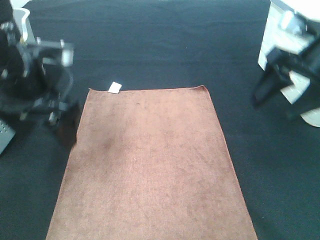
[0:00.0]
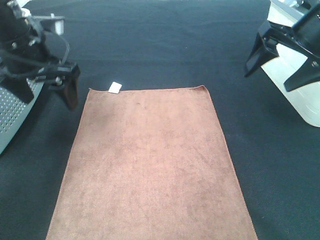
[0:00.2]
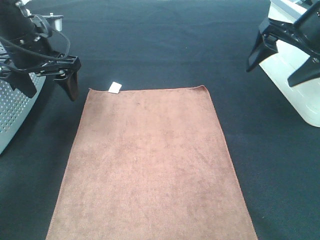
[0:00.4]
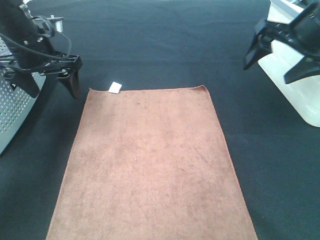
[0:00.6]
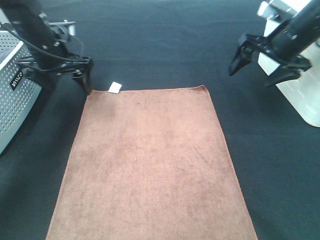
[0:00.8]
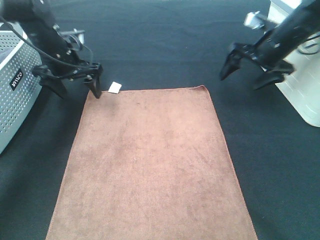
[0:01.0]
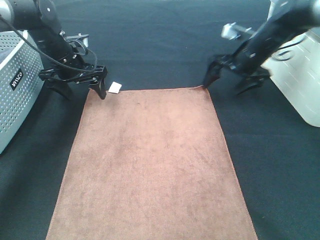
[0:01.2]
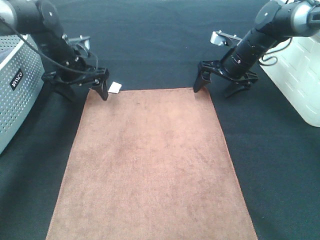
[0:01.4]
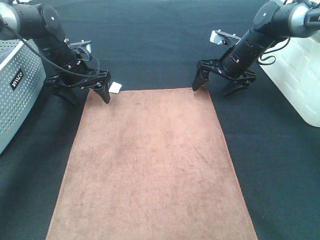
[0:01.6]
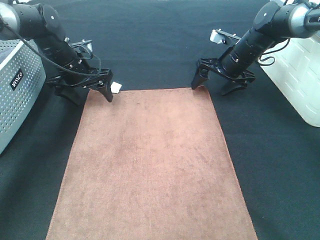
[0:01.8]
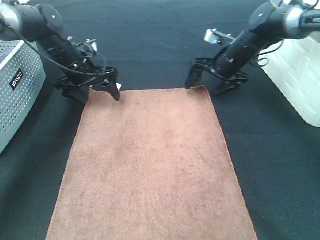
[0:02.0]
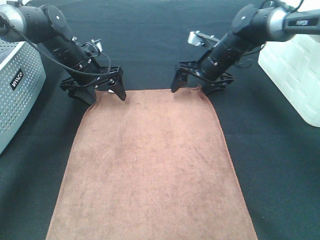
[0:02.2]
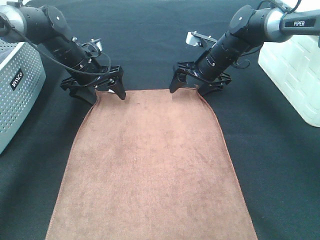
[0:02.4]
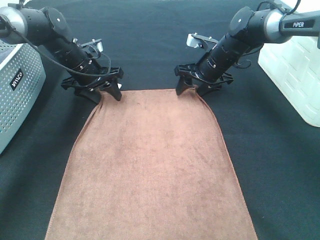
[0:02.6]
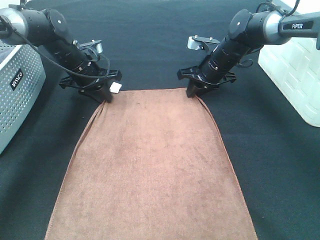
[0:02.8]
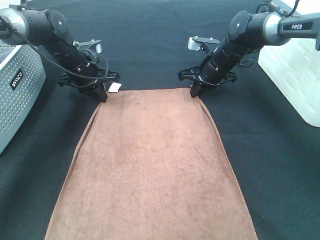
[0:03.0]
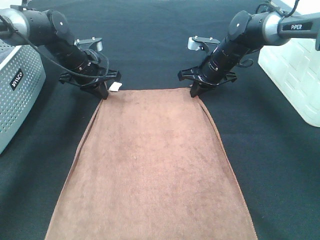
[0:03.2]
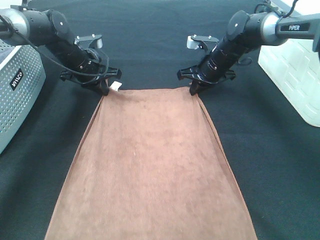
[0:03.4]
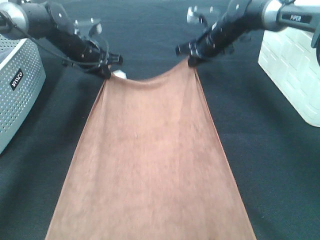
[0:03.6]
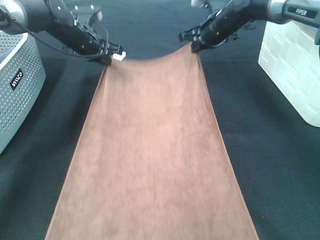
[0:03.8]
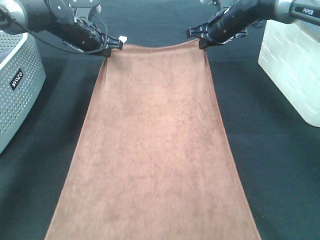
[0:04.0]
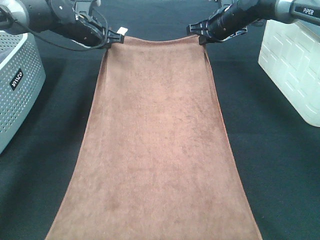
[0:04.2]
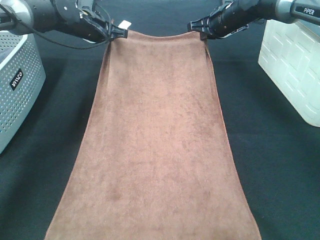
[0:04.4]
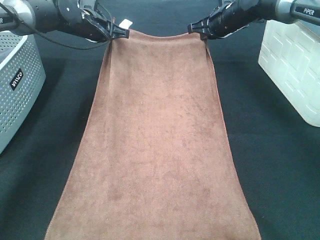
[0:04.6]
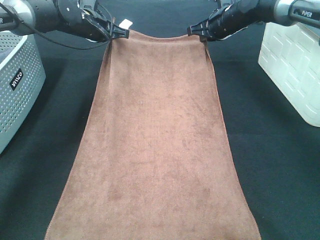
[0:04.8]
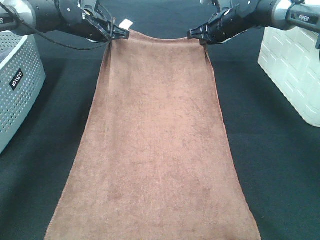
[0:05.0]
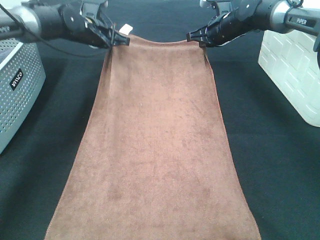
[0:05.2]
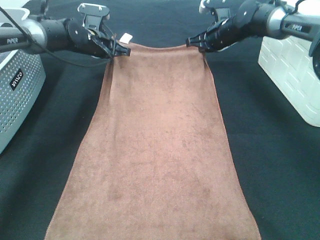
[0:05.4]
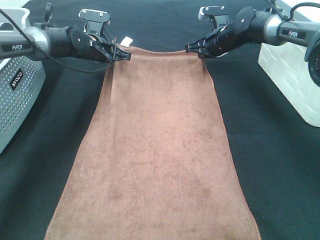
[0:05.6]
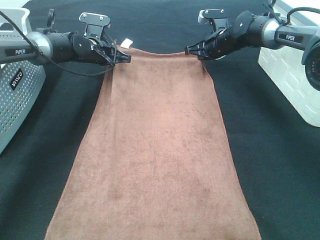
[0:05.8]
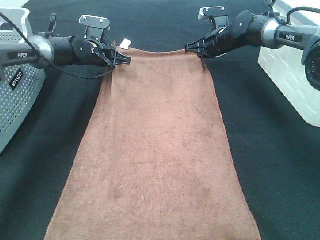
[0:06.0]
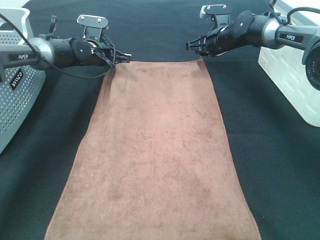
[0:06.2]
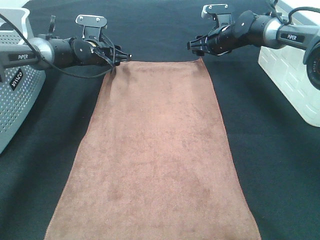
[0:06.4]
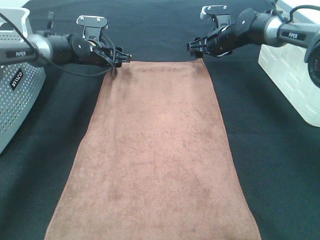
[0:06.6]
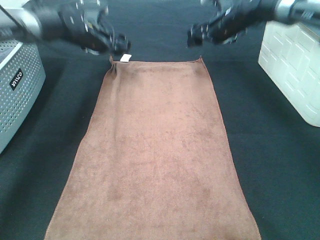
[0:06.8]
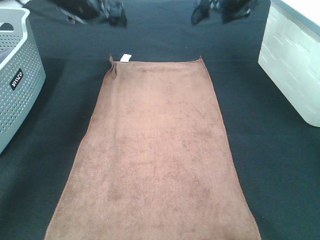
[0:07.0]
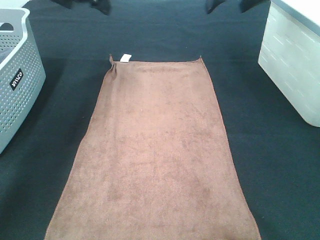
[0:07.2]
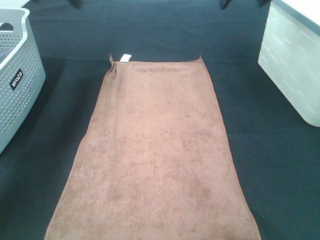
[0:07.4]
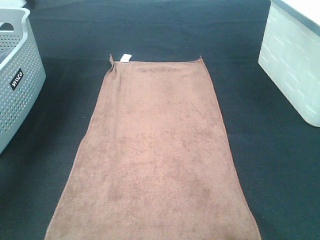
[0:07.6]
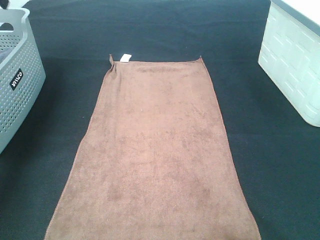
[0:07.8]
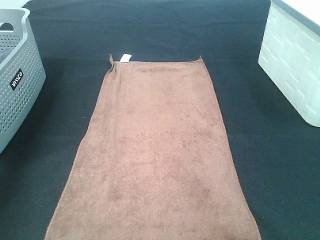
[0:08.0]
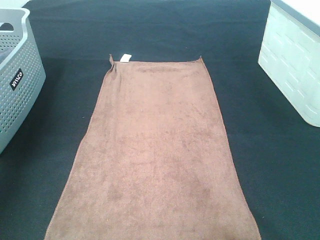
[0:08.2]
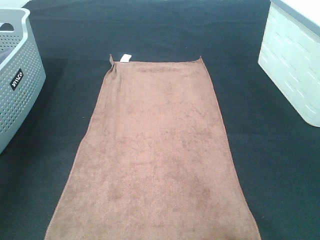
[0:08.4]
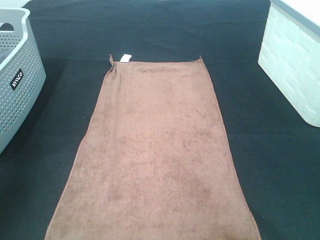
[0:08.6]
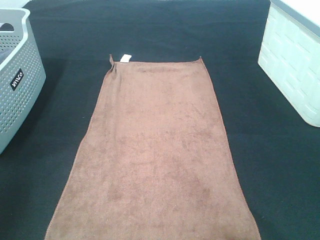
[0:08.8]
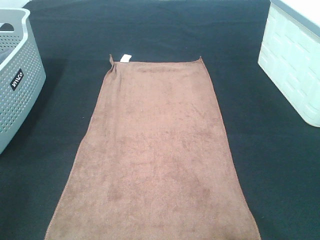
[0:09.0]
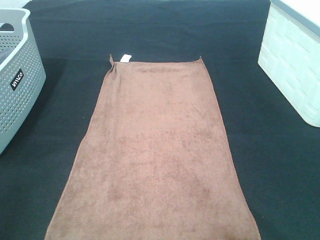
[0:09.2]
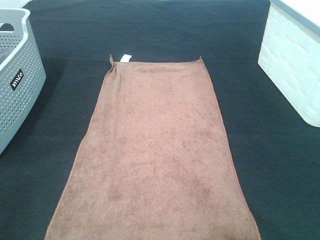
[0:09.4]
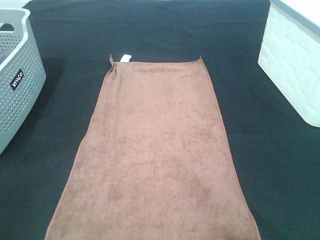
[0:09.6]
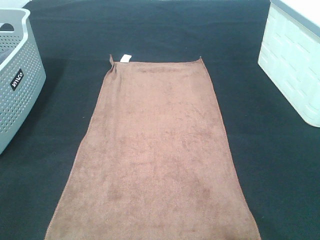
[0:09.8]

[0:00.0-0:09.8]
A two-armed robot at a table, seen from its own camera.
Task of the whole recording: Remove the towel and place it.
0:00.0 to 0:01.4: The two grippers go approximately 25 cm forward and downward.
0:01.4 to 0:02.8: The left gripper closes its fingers; the right gripper moves to the left, some 5 cm, and closes.
0:02.8 to 0:04.2: Both grippers move upward and forward, roughly 10 cm.
0:04.2 to 0:05.6: The two grippers go approximately 5 cm downward.
0:05.6 to 0:07.0: The two grippers go roughly 15 cm upward. The right gripper opens up; the left gripper opens its fingers.
0:07.0 to 0:08.4: The left gripper goes approximately 35 cm backward, to the left and upward; the right gripper heads backward and upward, covering approximately 35 cm.
0:08.4 to 0:09.8: The left gripper moves backward, roughly 25 cm.

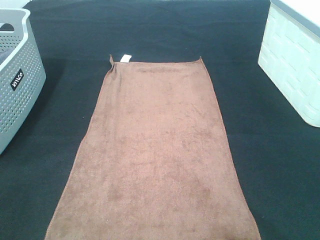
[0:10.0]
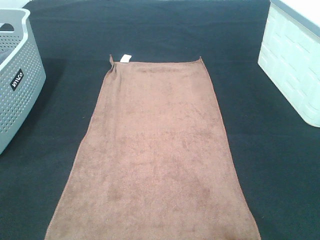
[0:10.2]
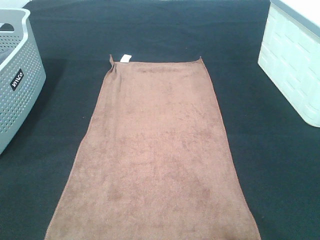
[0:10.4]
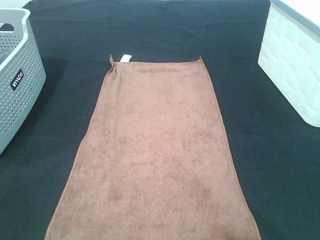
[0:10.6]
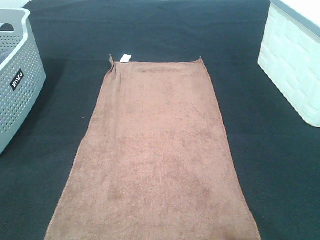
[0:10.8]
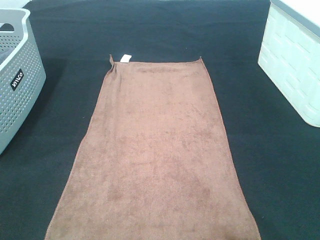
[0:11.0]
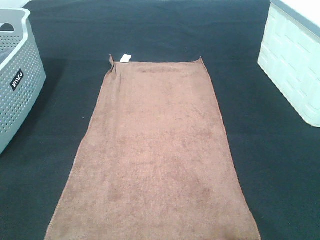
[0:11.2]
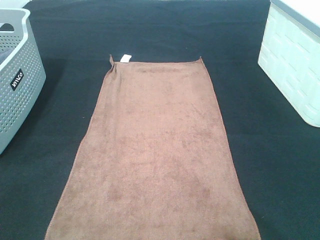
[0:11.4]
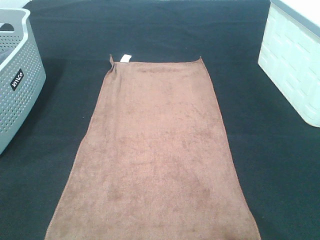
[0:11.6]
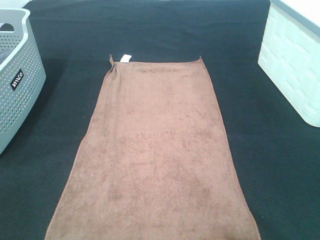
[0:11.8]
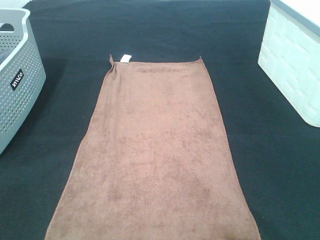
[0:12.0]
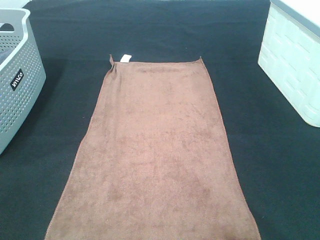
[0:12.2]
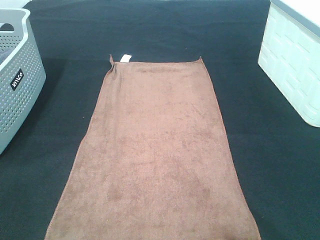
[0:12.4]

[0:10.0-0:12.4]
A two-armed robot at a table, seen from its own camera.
Task of the whole recording: Remove the towel and place it.
0:11.2 to 0:12.4: Neither gripper changes place.

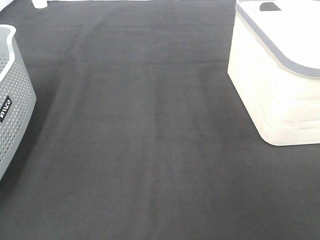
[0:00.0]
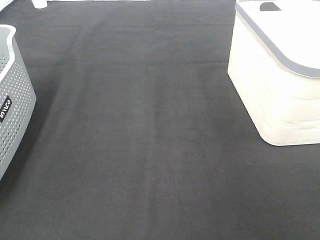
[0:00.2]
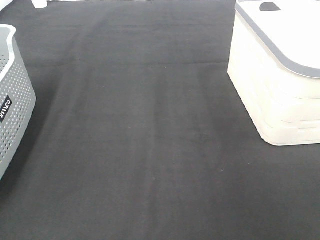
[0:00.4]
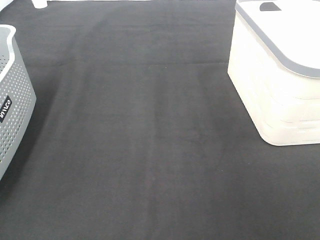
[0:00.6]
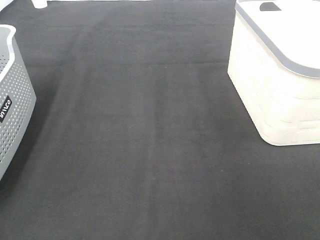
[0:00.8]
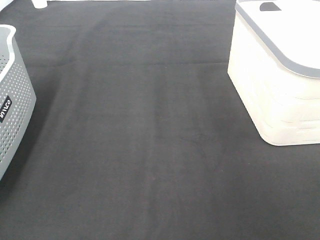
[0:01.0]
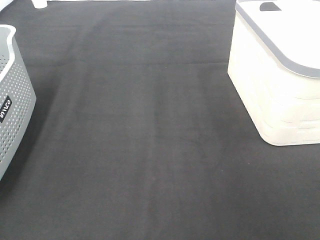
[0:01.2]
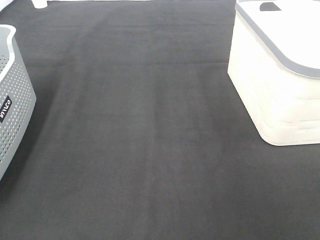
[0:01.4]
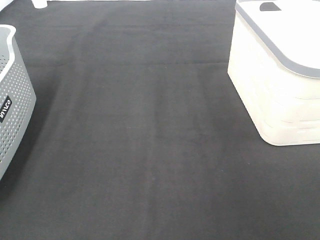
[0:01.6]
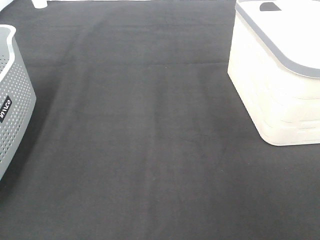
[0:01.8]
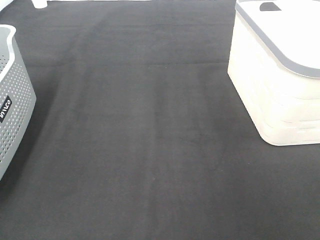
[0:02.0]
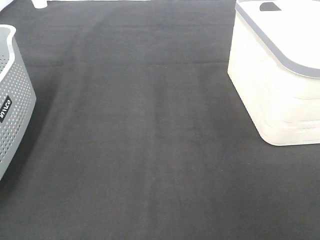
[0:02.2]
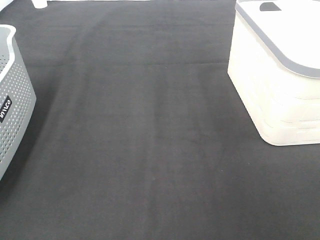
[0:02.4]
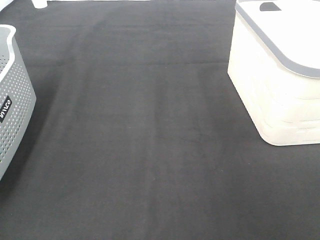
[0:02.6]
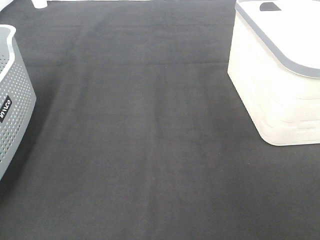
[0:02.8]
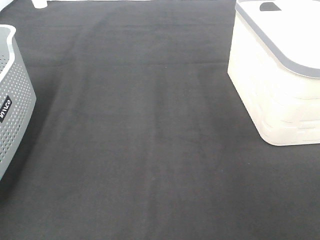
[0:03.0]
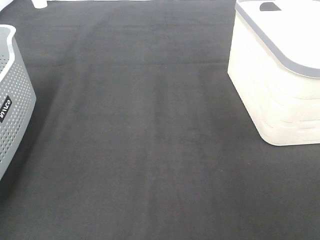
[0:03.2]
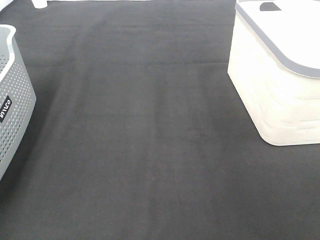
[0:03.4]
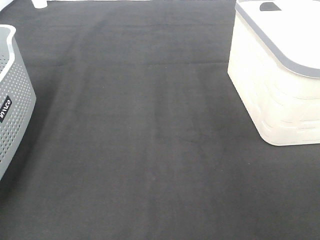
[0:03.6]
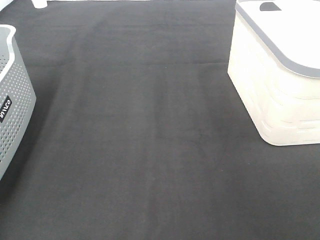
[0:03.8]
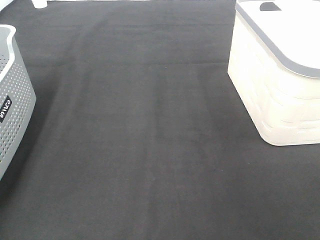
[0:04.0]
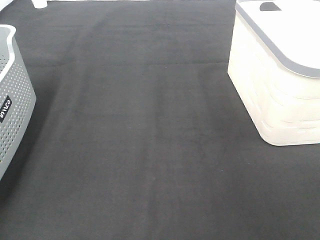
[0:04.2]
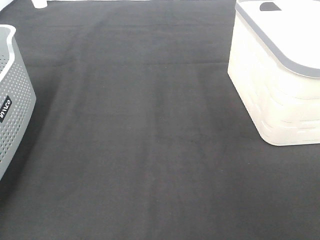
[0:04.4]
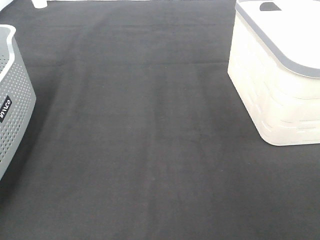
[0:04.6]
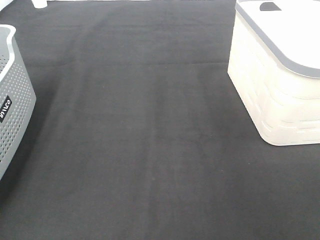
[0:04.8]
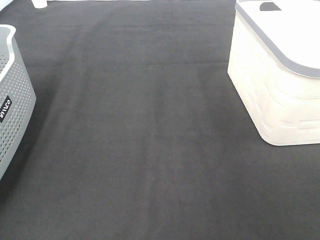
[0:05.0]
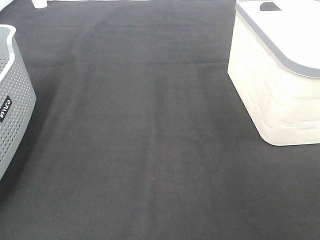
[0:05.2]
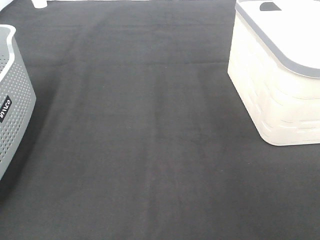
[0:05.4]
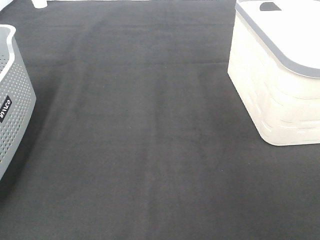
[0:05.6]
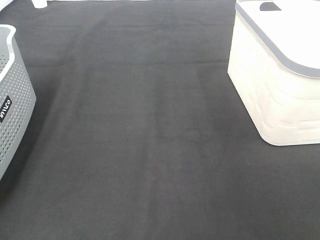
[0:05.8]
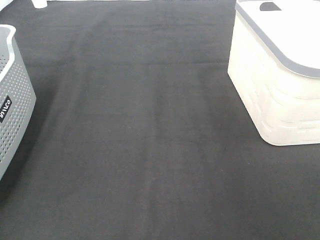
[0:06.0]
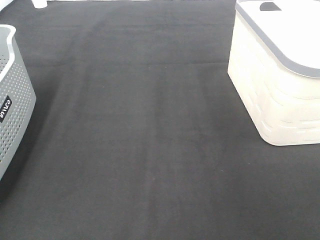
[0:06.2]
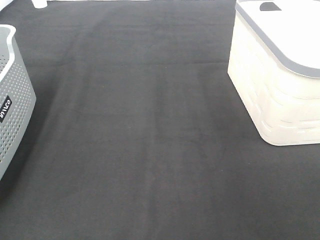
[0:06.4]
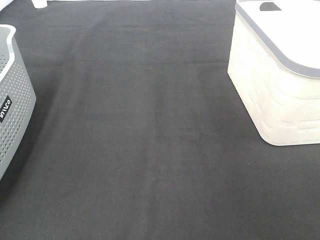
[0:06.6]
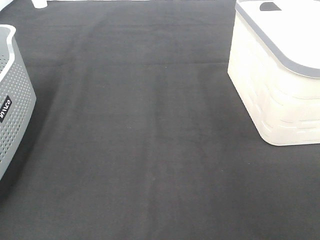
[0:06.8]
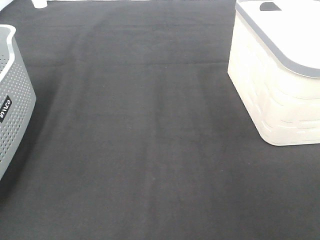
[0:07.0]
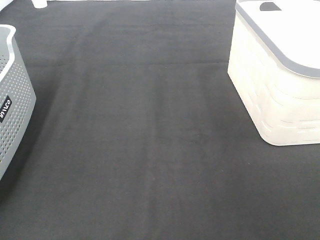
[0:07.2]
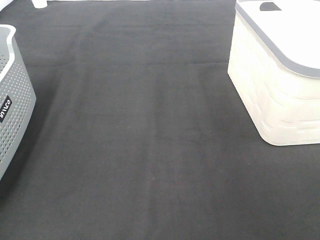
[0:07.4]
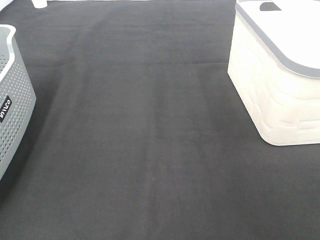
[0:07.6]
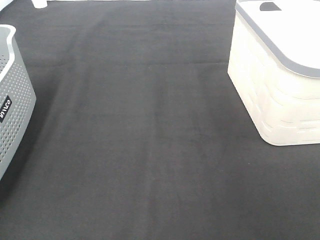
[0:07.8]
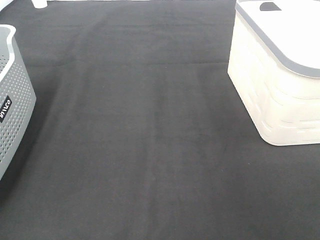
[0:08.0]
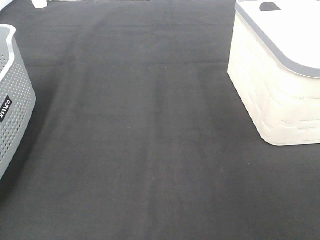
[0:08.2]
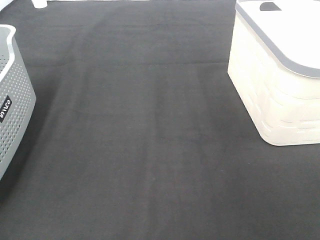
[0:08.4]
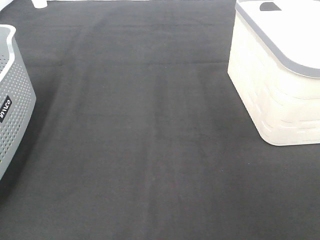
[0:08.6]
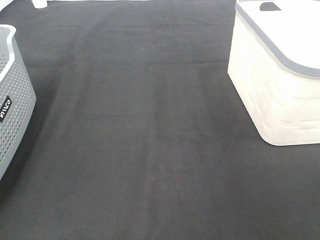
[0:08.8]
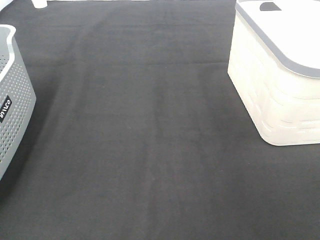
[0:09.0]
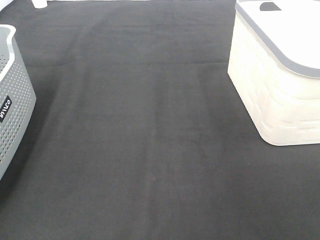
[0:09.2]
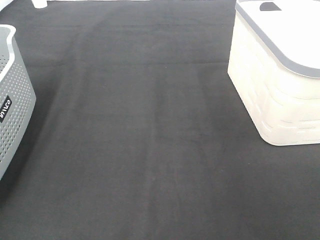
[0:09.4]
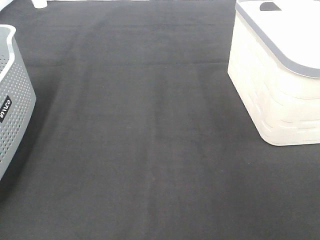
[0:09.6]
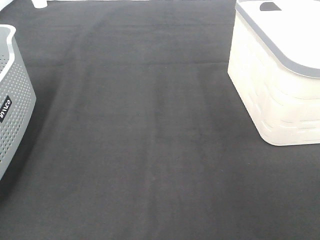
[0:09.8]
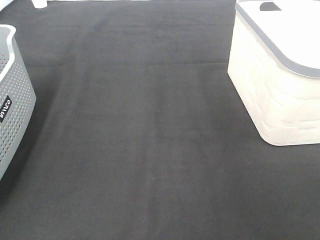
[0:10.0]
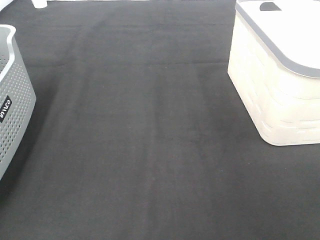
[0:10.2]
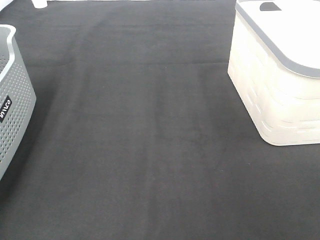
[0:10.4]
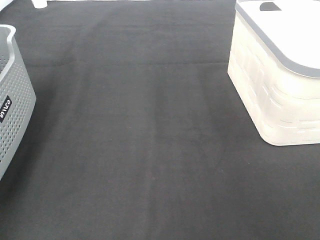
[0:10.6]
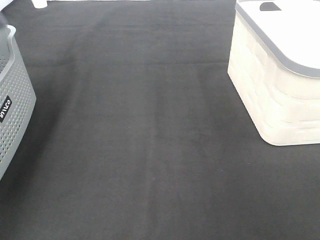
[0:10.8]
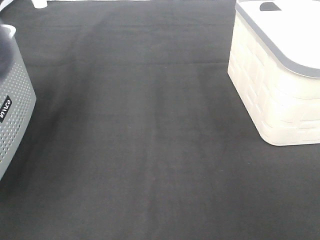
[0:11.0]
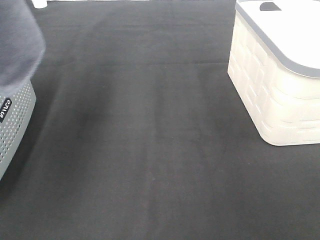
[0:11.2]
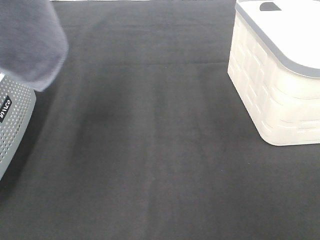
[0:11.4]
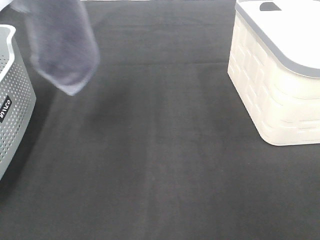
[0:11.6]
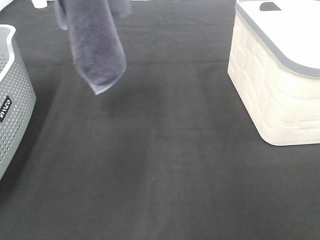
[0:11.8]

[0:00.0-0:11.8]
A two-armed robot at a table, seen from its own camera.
Task of the whole recording: Remove the towel and place it.
0:00.0 to 0:01.4: Neither gripper changes place.
0:06.0 to 0:07.4: Neither gripper changes place.
0:10.4 to 0:11.8: The left gripper shifts approximately 25 cm to the right and upward.
